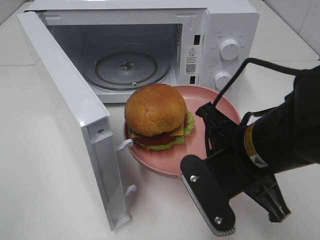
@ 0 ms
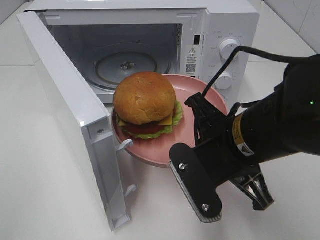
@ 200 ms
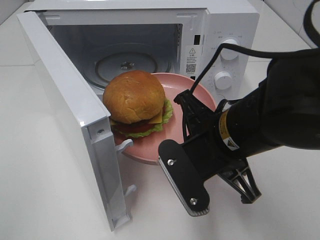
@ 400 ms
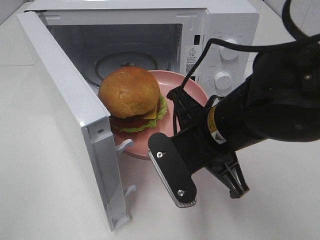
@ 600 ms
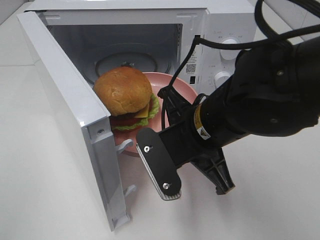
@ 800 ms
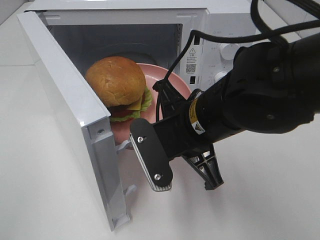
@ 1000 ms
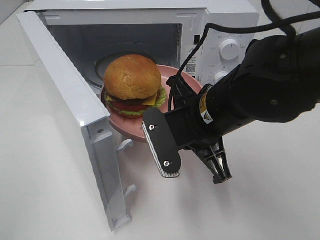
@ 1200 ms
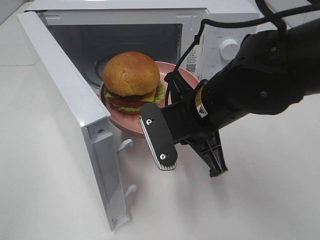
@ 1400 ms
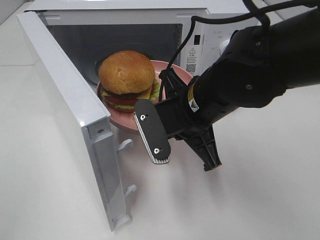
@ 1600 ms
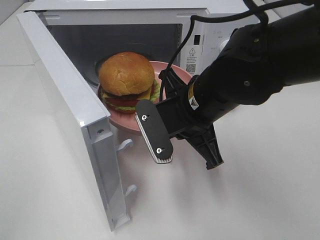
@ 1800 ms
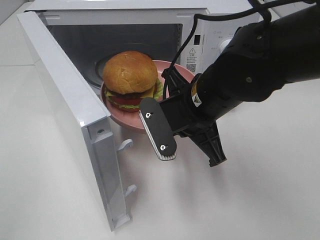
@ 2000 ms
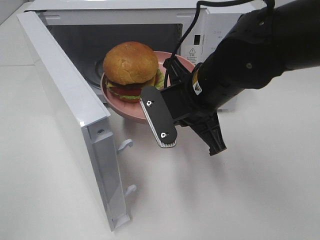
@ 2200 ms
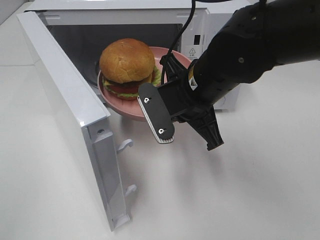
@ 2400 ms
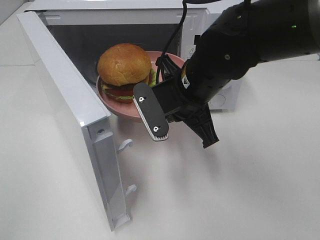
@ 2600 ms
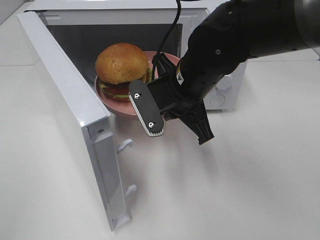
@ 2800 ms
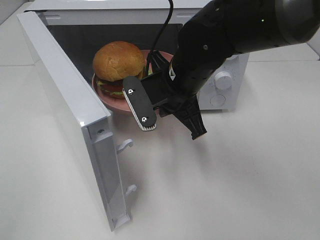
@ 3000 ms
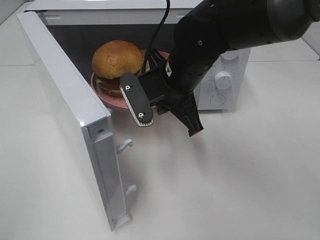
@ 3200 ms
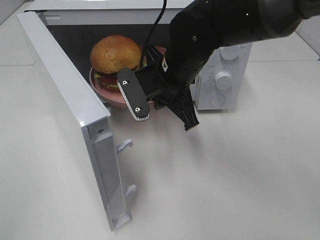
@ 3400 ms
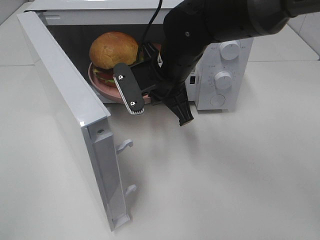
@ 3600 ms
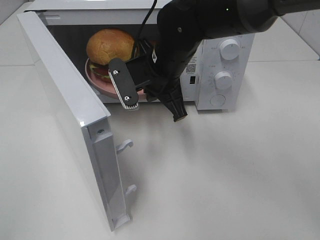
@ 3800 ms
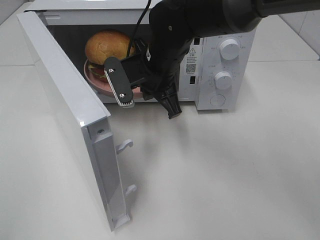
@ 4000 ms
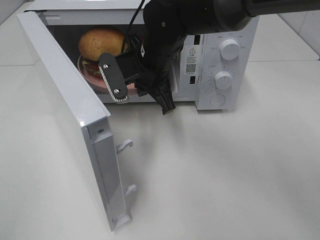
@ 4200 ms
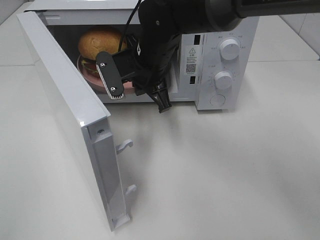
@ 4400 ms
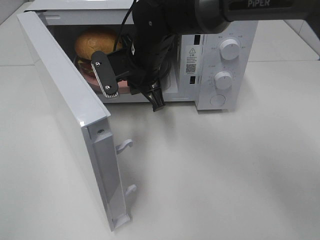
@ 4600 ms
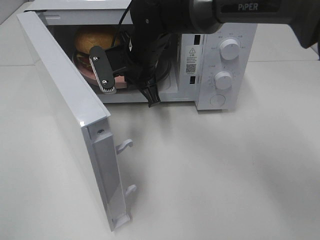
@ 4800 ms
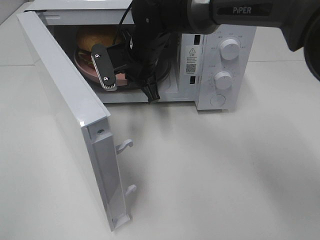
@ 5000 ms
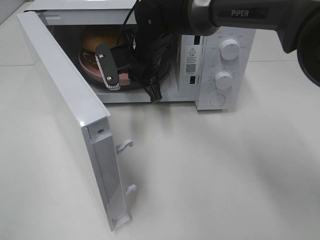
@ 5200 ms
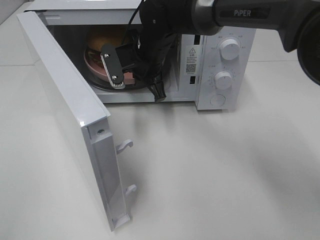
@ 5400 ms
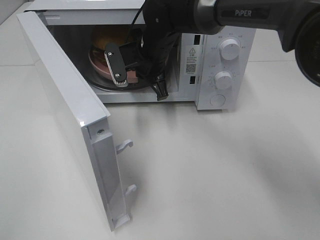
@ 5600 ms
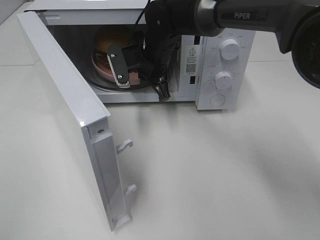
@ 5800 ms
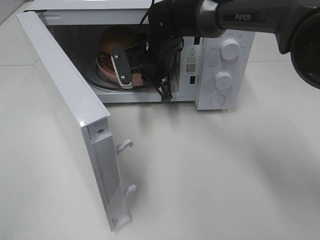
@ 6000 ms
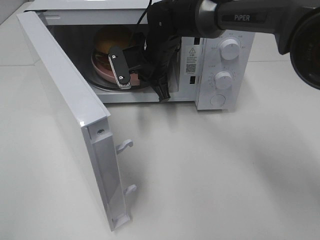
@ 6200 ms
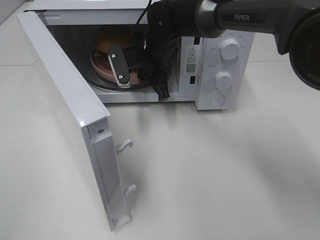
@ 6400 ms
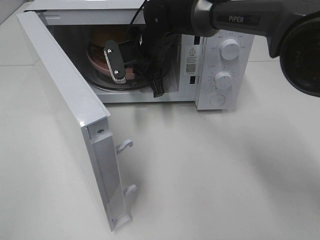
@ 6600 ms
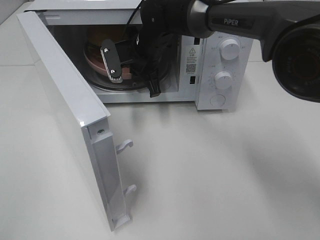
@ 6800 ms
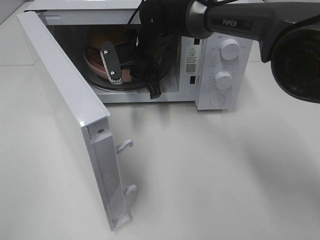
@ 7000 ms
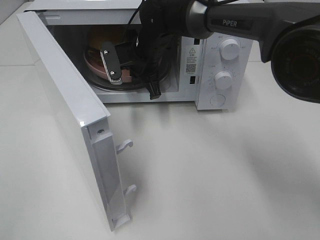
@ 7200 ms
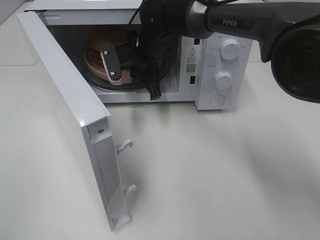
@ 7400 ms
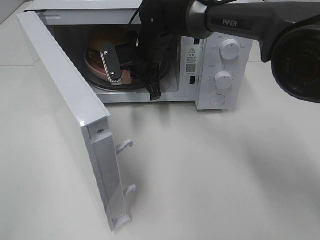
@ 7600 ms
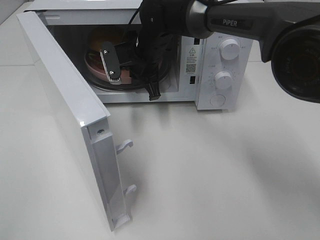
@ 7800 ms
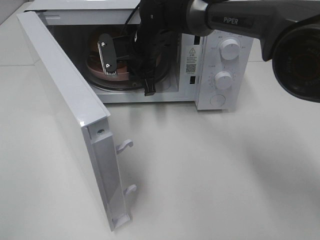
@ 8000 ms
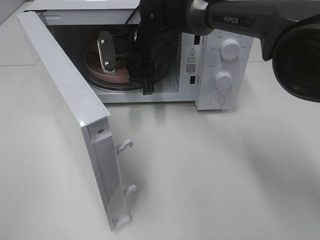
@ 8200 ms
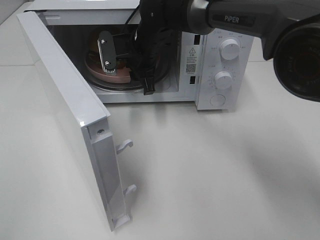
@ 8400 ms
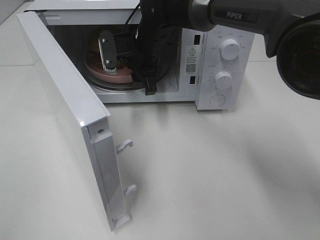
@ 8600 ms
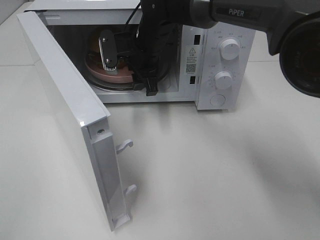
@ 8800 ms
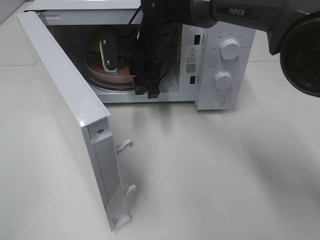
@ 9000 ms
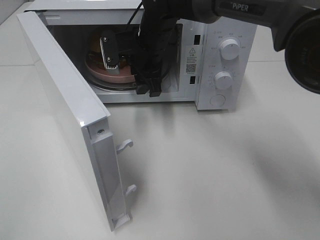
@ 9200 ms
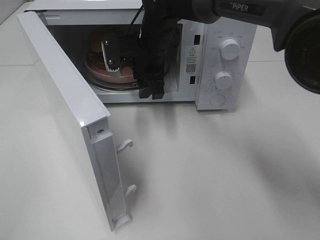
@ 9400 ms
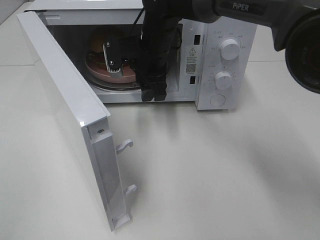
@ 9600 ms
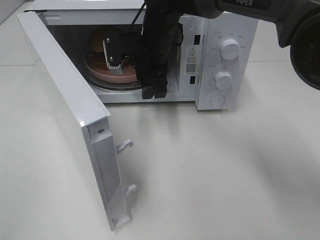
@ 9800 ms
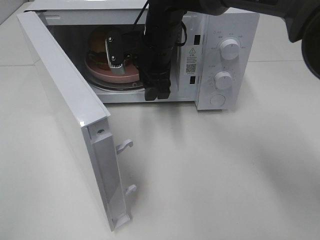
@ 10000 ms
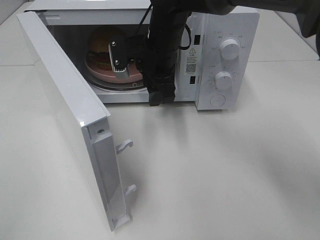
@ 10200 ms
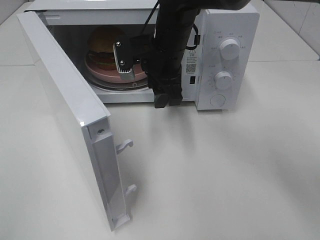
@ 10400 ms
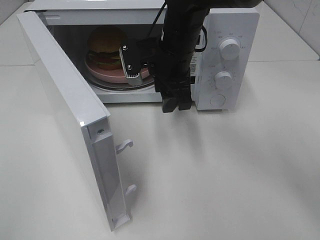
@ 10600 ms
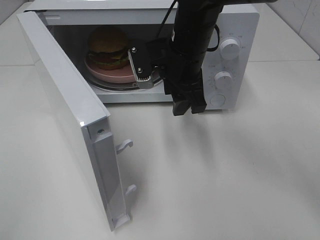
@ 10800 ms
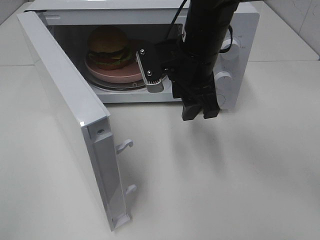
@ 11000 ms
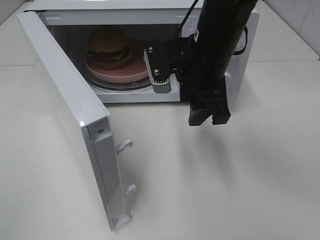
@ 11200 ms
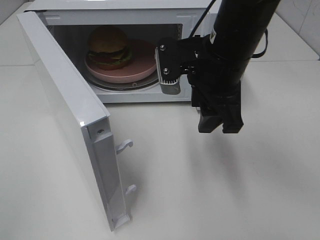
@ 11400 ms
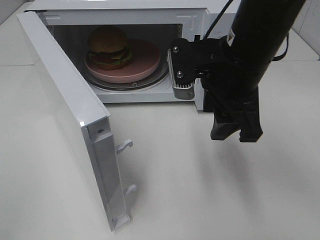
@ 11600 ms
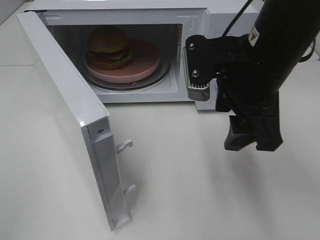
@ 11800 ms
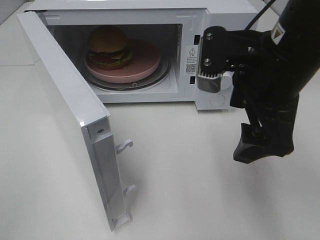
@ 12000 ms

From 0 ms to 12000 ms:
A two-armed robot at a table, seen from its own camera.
Task of the whole recording: Heat the burger.
Step, from 0 ms to 8000 ms: Right hand: place the plate in the microwave.
From 0 ms to 1600 ms: The right gripper moves forward, about 10 cm.
From 1600 ms to 3000 ms: The right gripper is displaced forward by roughly 5 cm.
From 3000 ms to 4400 ms: The right gripper heads forward, covering some 5 cm.
From 4400 ms to 6000 ms: The right gripper moves forward, approximately 5 cm.
From 6000 ms to 7600 ms: There are only small adjustments of the grippers.
From 7600 ms to 9000 ms: The right gripper opens.
From 9000 ms to 10400 ms: The right gripper shifts by approximately 5 cm.
From 10400 ms to 12000 ms: The right gripper moves backward, to the right and upward, some 20 cm, and opens up.

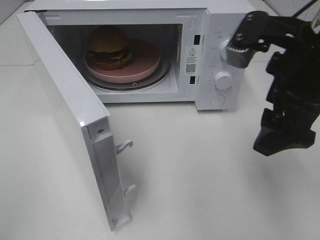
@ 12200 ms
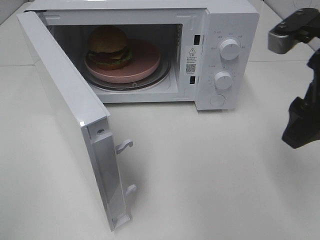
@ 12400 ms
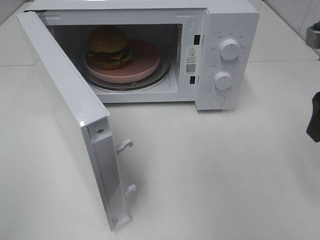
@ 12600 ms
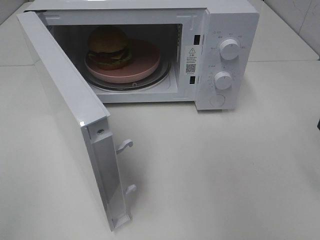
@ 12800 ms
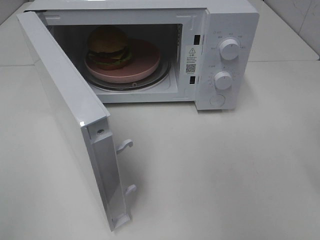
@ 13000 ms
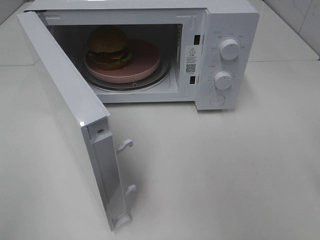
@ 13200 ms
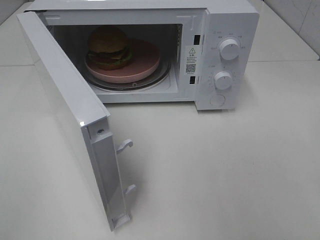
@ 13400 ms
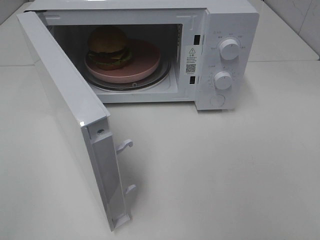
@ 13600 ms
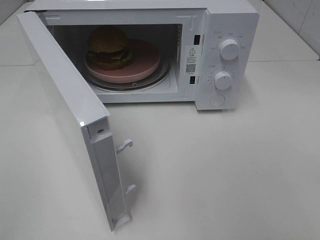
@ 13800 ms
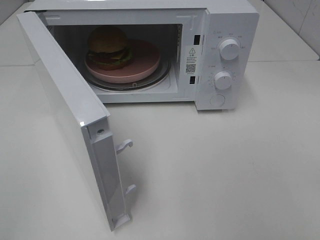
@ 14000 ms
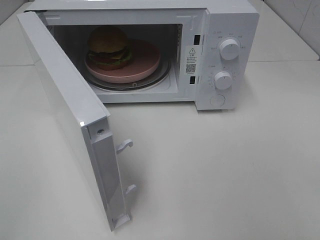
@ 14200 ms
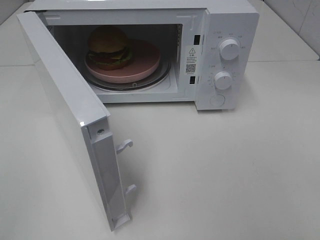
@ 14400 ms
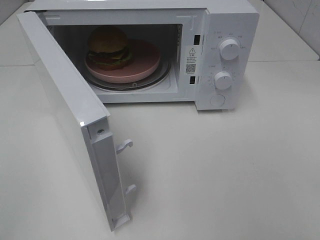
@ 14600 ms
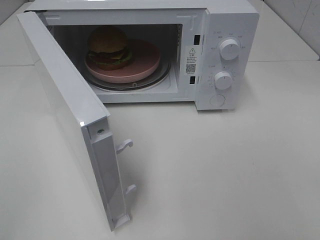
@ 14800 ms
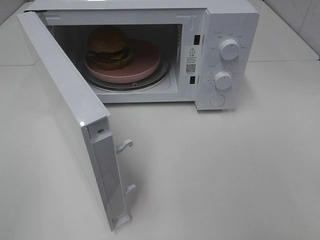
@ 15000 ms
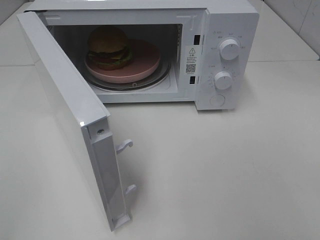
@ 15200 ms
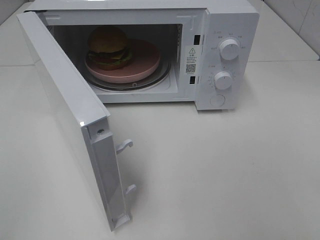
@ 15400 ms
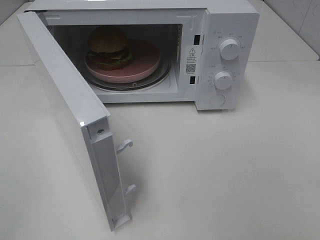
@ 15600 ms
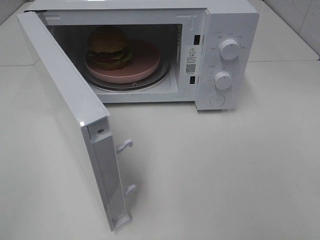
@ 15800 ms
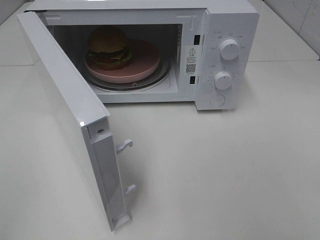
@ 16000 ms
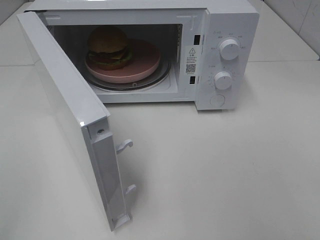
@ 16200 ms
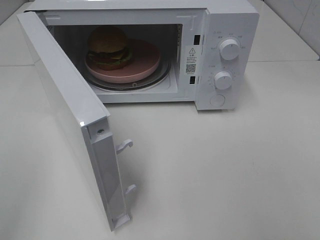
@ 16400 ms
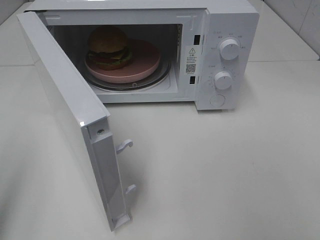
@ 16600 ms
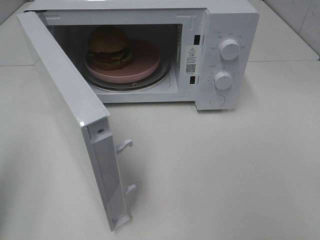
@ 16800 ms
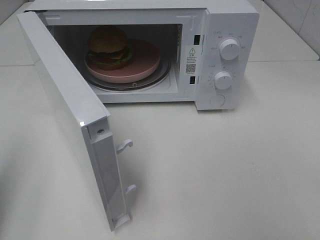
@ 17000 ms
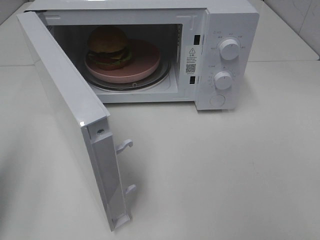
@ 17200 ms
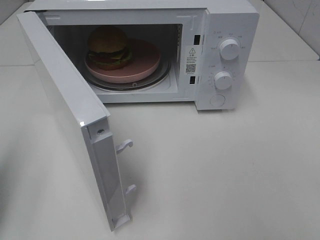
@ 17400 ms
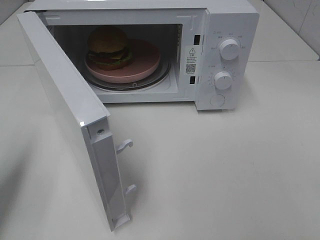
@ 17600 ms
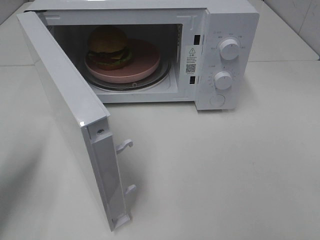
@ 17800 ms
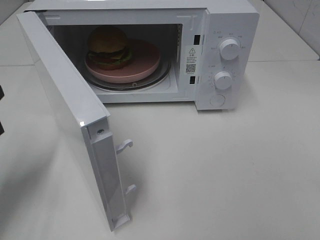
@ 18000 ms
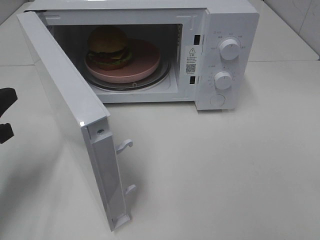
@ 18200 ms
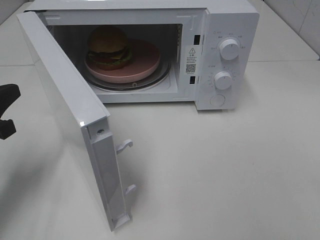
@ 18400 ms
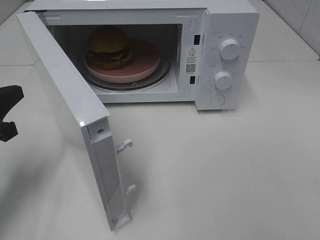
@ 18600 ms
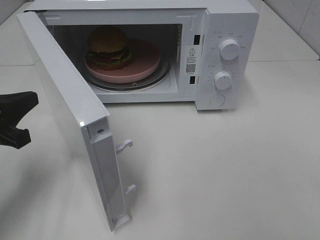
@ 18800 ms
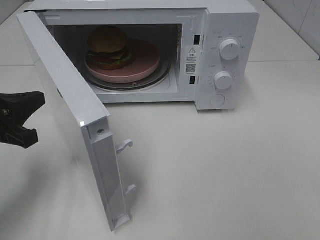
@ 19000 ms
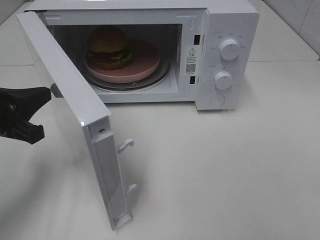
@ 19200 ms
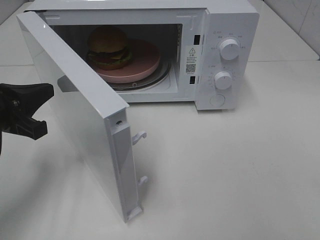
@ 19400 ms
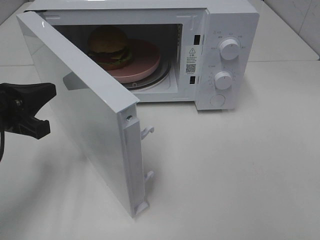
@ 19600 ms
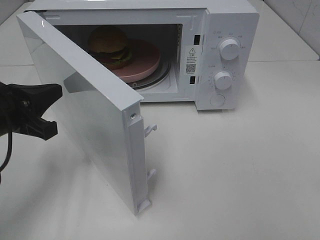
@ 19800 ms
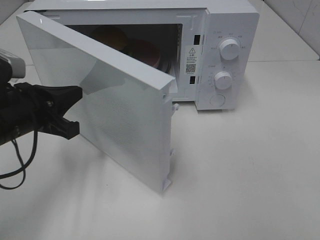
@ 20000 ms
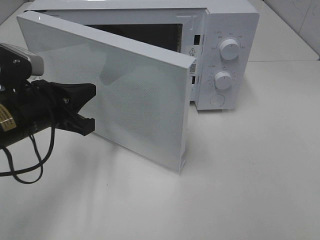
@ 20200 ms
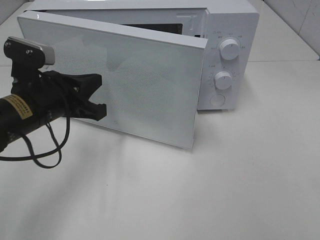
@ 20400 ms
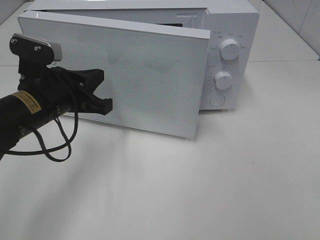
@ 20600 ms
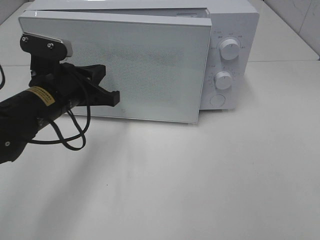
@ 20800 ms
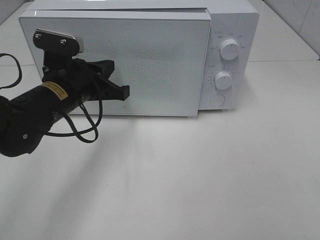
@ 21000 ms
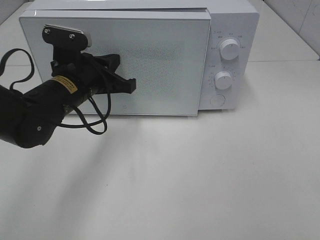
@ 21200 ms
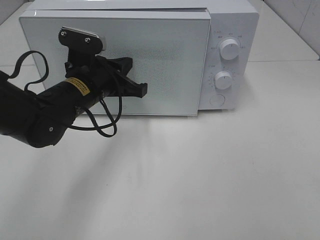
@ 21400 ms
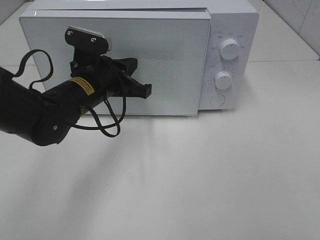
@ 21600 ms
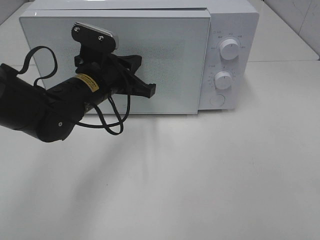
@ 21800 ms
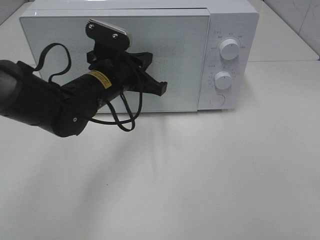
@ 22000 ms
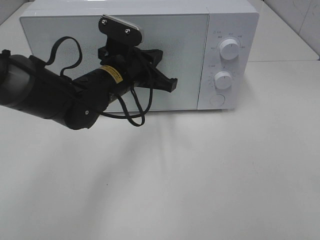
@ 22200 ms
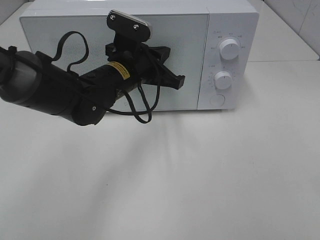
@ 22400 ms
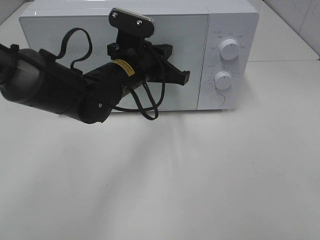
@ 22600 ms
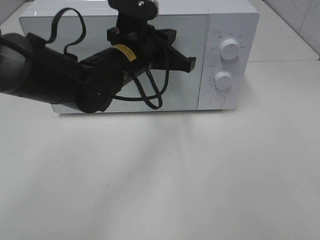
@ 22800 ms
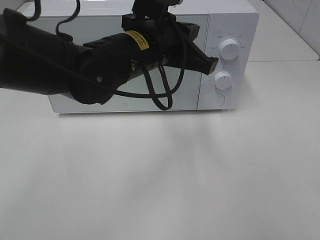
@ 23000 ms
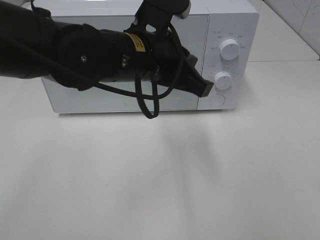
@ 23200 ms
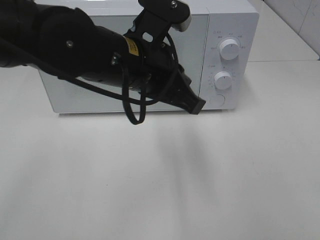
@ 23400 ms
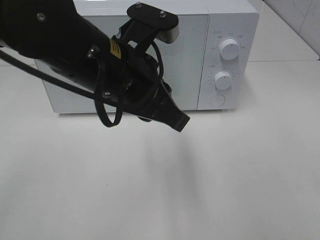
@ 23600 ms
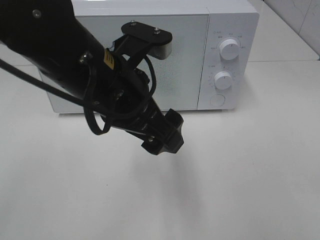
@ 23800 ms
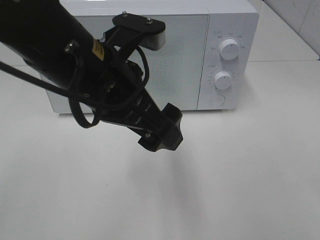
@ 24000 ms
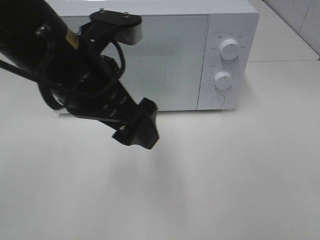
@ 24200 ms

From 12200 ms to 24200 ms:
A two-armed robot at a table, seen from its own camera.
Task of the whole recording: Heat the burger.
Step, from 12200 ms to 22200 ms: Left hand: close the microwave door.
From 12200 ms to 13800 ms: The right gripper shifts some 20 cm backward and to the right.
From 16600 ms to 18200 ms: The left gripper goes roughly 20 cm downward and forward, and closes.
From 18200 ms to 19800 ms: The left gripper heads to the right, covering roughly 5 cm.
From 19800 ms to 21200 ms: The left gripper is displaced to the right and forward by about 15 cm.
From 21200 ms to 22600 ms: The left gripper heads to the right, covering about 10 cm.
From 22600 ms to 24200 ms: The left gripper is displaced backward and upward by approximately 15 cm, and opens its fingers.
